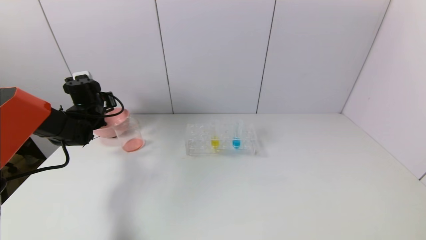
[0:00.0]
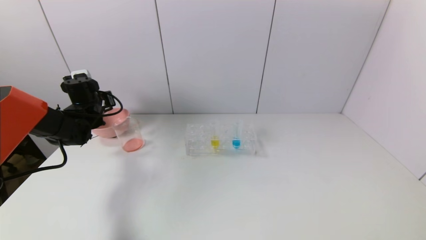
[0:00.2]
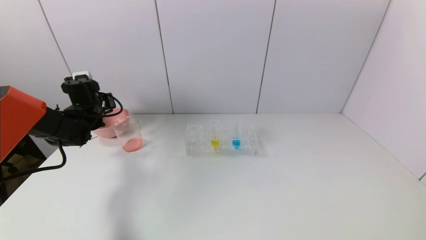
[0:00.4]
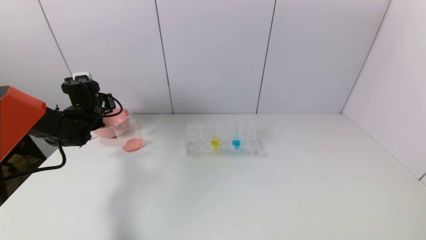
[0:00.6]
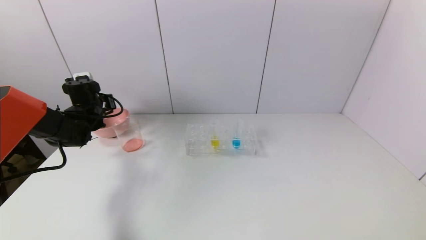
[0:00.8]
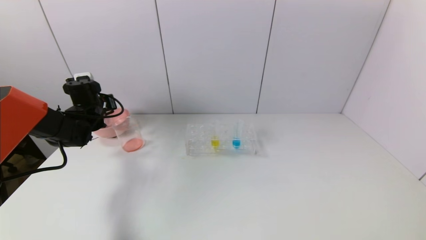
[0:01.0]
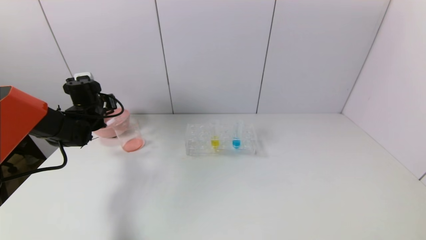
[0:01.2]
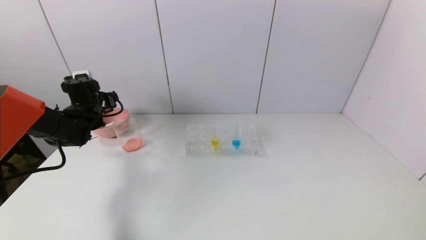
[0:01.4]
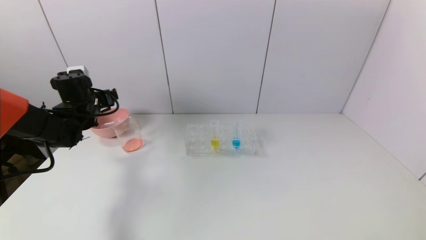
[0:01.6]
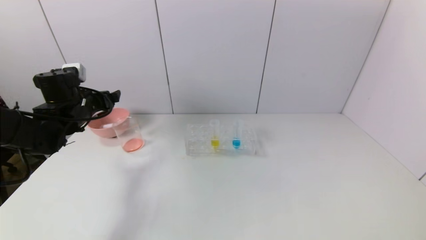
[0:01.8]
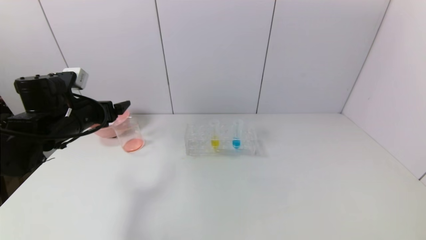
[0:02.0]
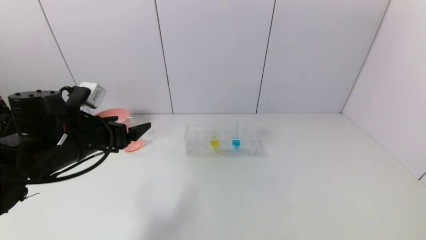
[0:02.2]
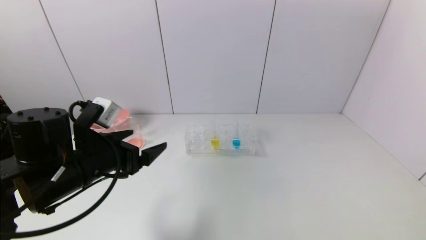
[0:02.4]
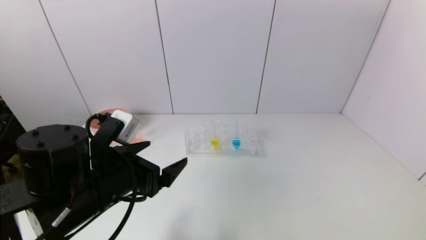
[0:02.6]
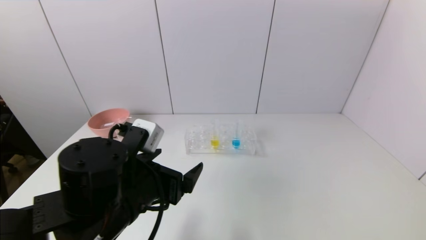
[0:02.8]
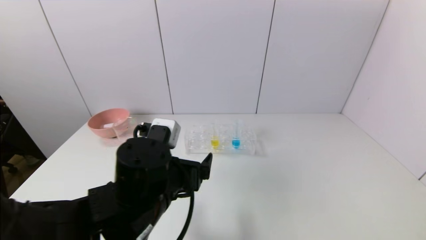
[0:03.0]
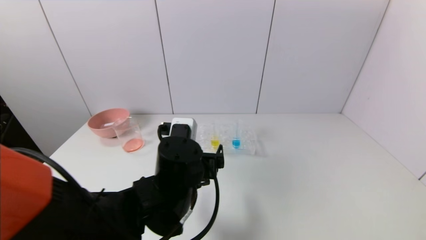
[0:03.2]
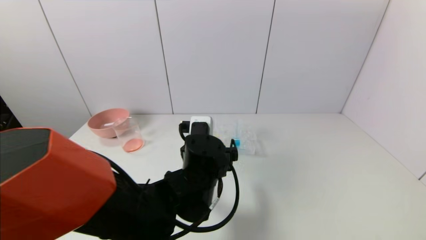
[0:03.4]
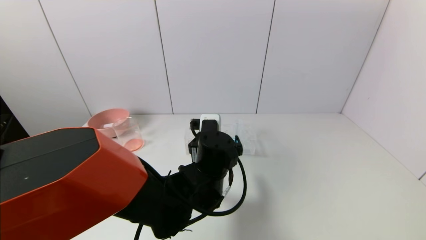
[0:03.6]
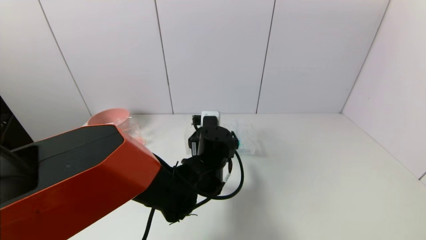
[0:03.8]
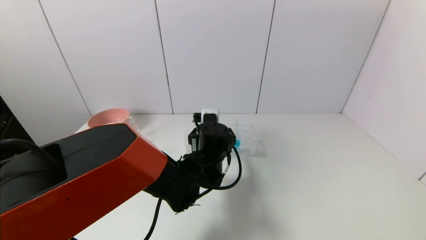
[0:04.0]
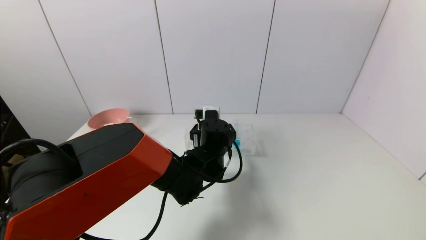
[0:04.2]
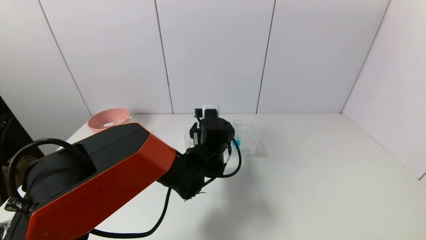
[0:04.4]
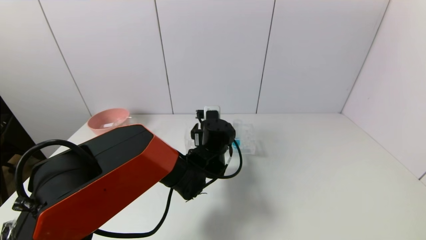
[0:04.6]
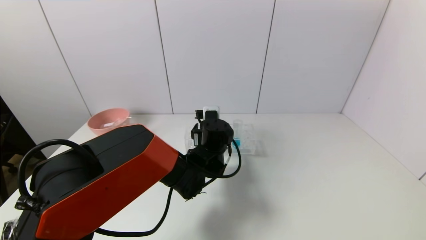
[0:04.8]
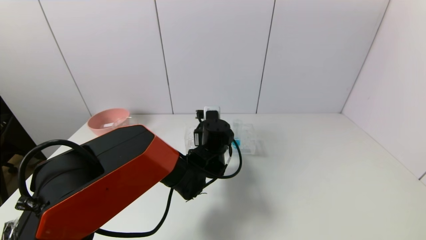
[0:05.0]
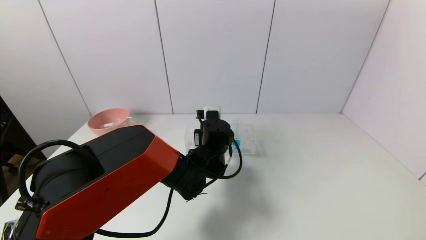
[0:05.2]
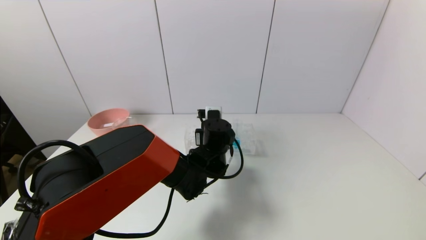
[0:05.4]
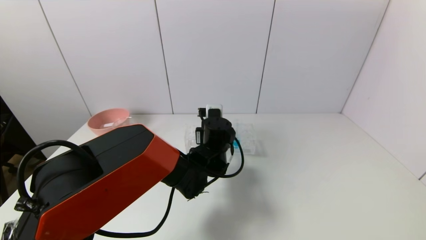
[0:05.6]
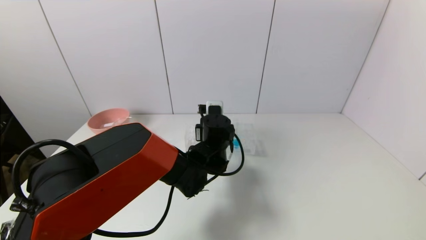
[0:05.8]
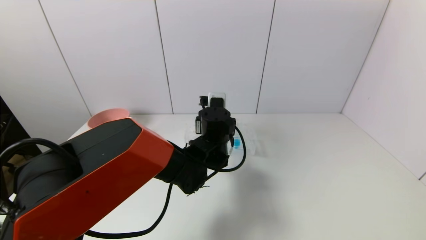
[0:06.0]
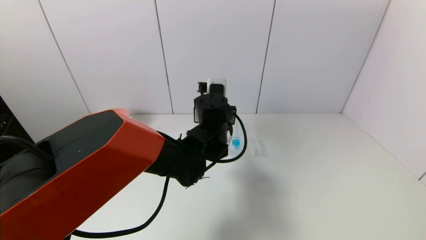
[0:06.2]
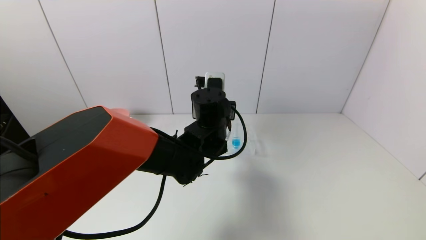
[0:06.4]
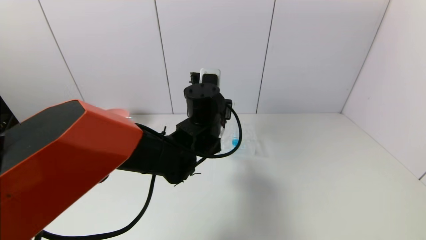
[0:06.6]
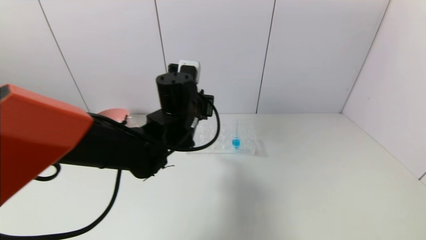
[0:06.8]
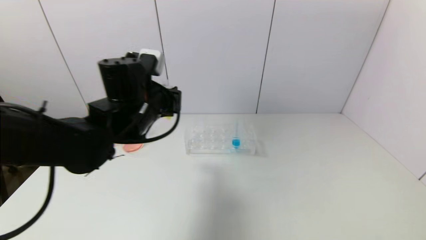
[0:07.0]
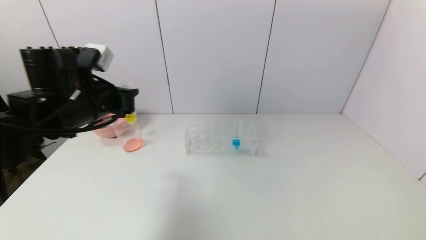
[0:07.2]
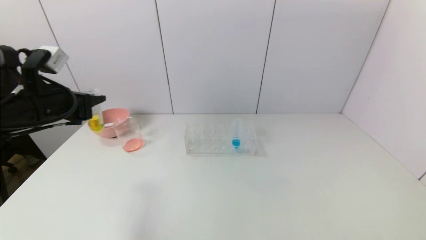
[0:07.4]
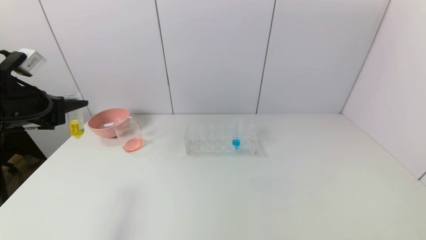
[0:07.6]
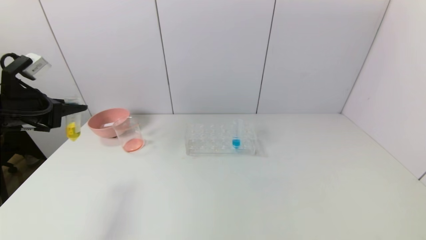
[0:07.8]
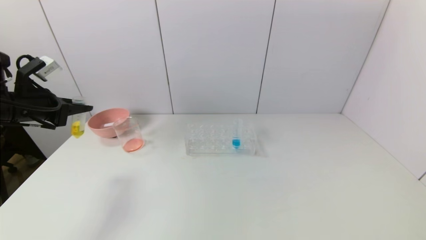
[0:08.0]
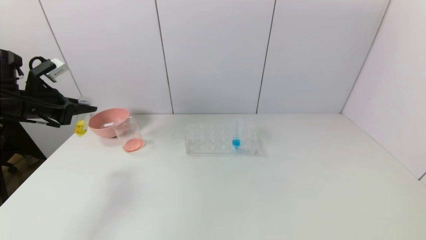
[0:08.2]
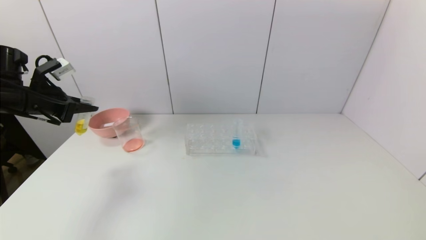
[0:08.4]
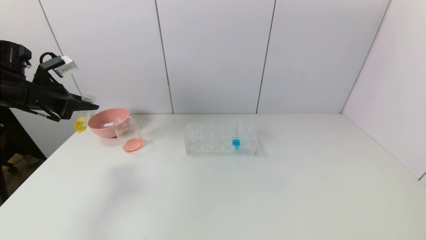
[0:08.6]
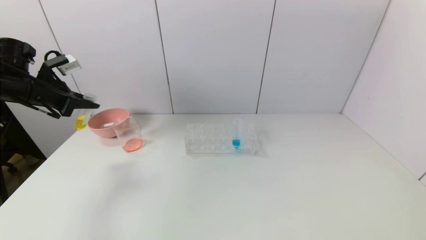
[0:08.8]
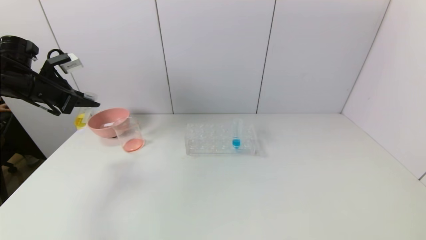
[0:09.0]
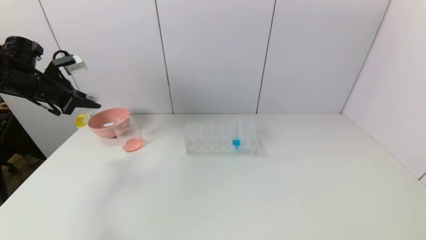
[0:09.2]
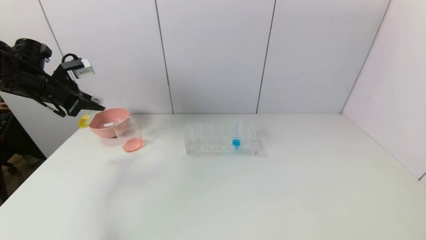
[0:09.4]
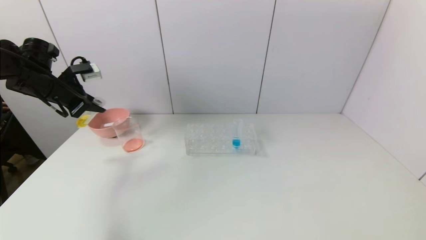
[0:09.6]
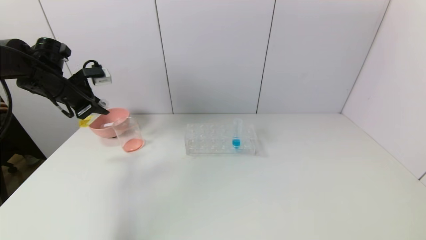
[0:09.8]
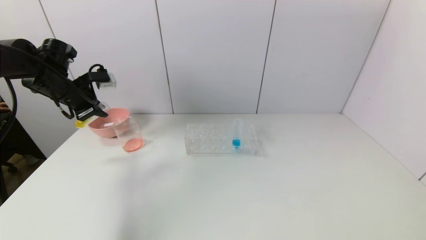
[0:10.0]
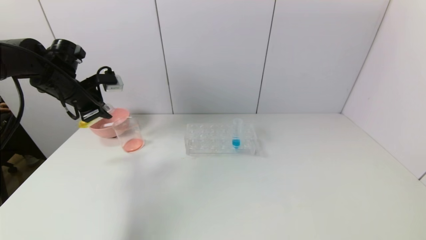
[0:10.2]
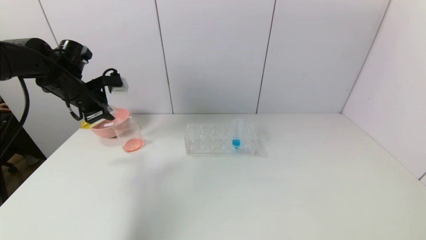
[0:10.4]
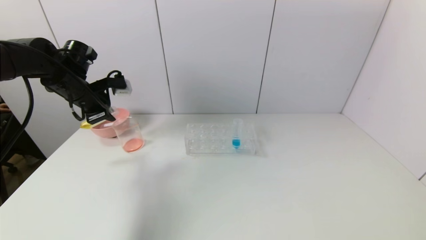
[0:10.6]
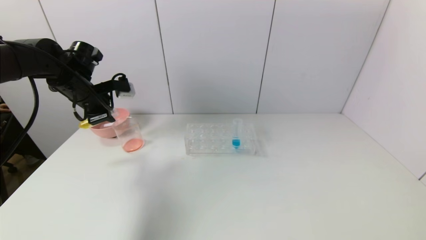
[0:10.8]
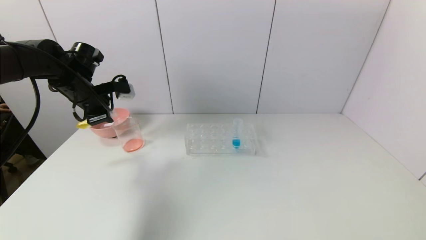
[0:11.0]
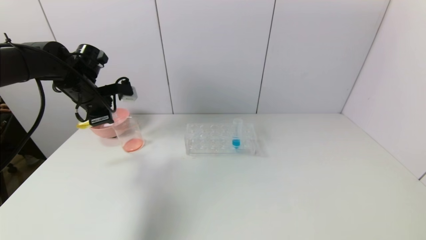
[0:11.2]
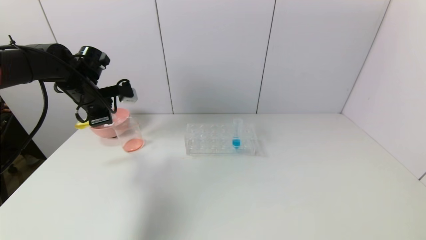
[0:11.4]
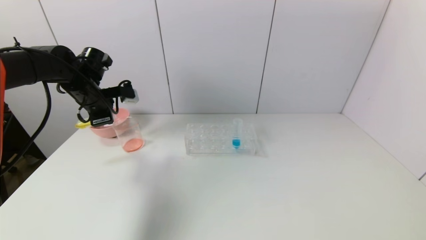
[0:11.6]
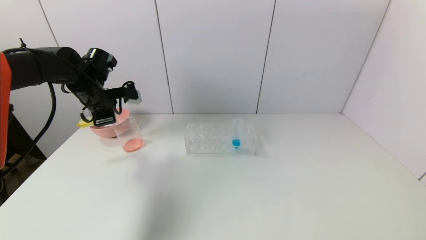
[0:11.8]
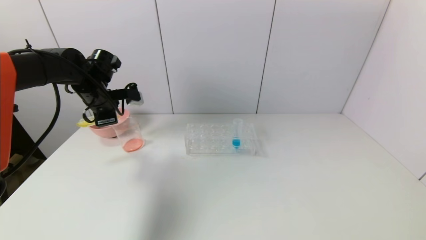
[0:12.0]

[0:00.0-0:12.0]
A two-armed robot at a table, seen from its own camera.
Task of the whole recording: pick up the test tube with yellow pigment and the test tube with red pigment by grippers and pour them into the beaker.
Step, 0:01.4 to 0:05.4: Grasp the yellow reagent with the left gripper.
0:00.0 to 0:01.6: The left gripper opens.
0:01.6 to 0:03.0: The left gripper shifts about 30 cm to the right and backward.
0:03.0 to 0:04.4: The left gripper goes some 20 cm forward and to the right.
0:04.4 to 0:06.0: The left gripper closes.
0:06.0 to 0:07.6: The left gripper goes some 35 cm to the left.
0:07.6 to 0:09.0: The left gripper is displaced forward and to the left by some 10 cm.
0:09.0 to 0:10.4: The left gripper heads to the right, covering roughly 10 cm.

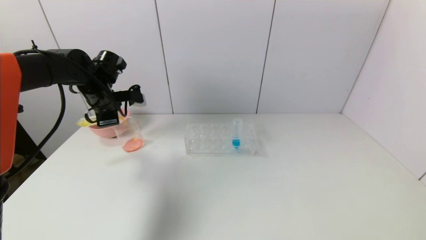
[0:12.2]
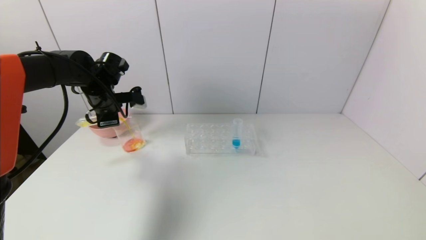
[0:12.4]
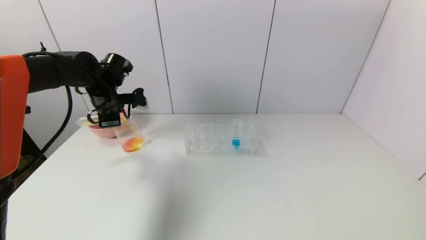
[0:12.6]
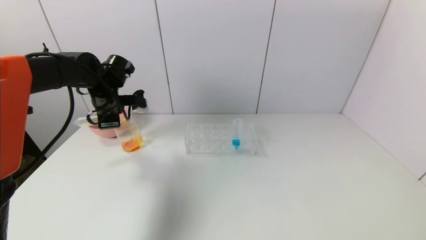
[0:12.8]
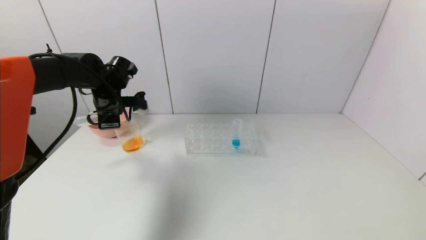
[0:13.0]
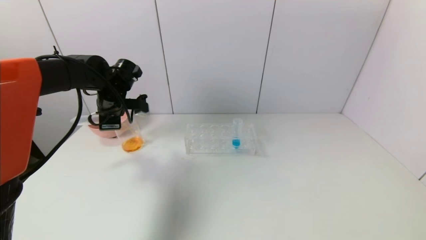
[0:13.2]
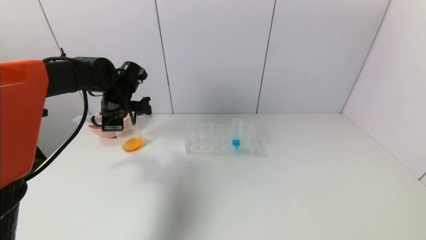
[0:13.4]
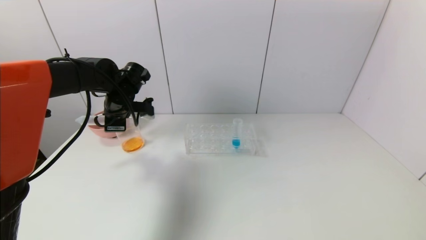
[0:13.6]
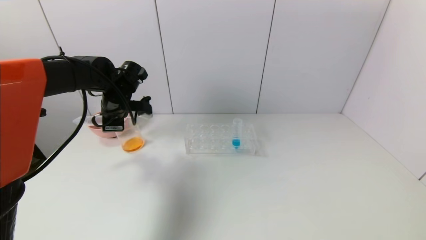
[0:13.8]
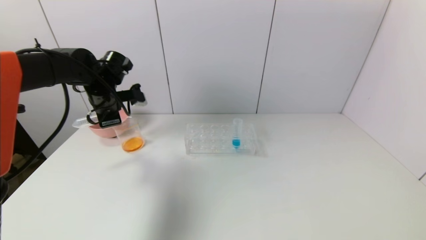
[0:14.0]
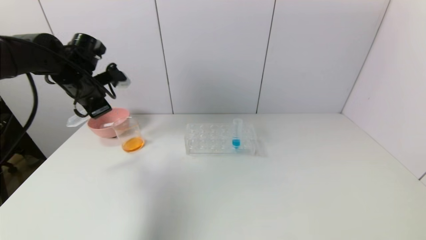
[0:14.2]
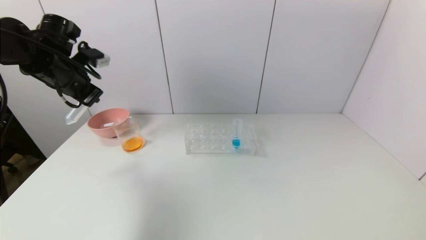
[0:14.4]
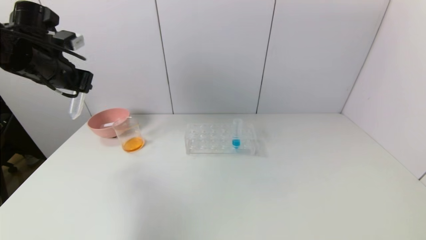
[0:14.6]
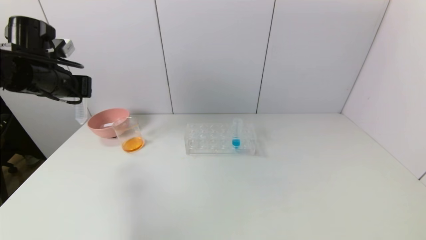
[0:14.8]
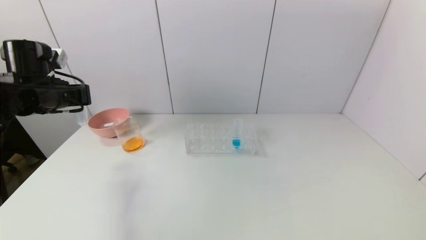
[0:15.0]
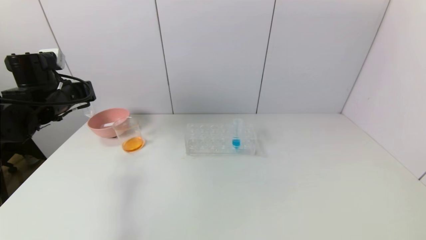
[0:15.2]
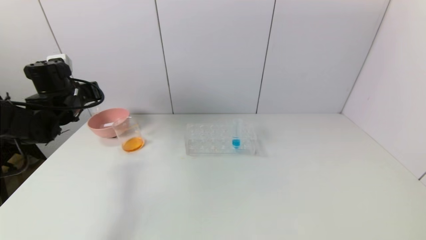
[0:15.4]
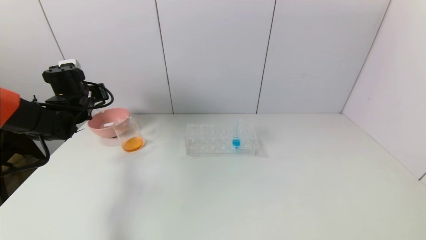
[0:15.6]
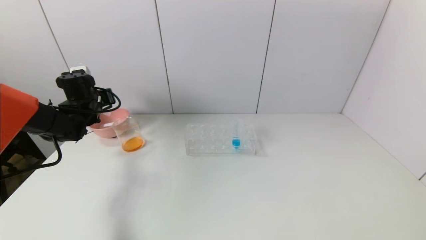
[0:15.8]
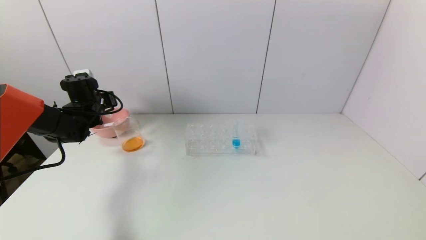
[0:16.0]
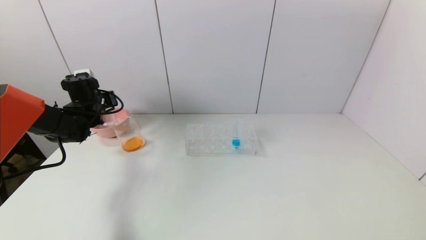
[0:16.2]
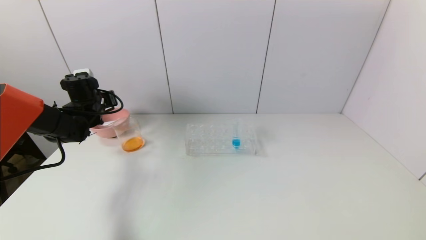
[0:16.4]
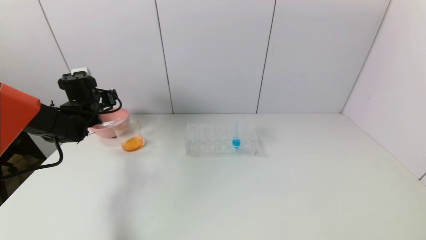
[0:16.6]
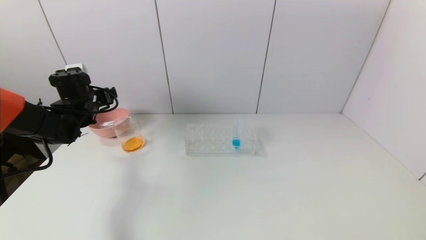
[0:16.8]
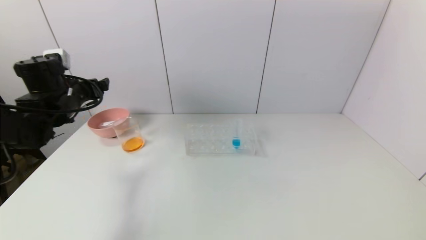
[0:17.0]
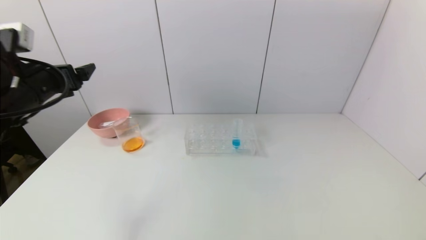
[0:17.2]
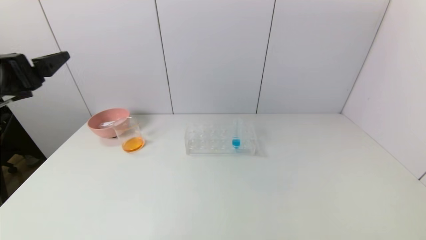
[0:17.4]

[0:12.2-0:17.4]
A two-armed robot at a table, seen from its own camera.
Task of the whole recording: pick up the test tube with yellow pigment and the test tube with red pigment by grippers and pour them into the beaker.
Step, 0:13.8 to 0:16.4: Place the test tube into the pink bowl with the left gripper.
0:12.2 to 0:14.0: The grippers make only small movements.
0:14.0 to 0:15.6: The left gripper goes some 10 cm to the left, and goes upward and returns, approximately 10 cm each way.
0:15.6 to 0:17.4: The left gripper shifts some 25 cm backward and upward, and opens its fingers.
